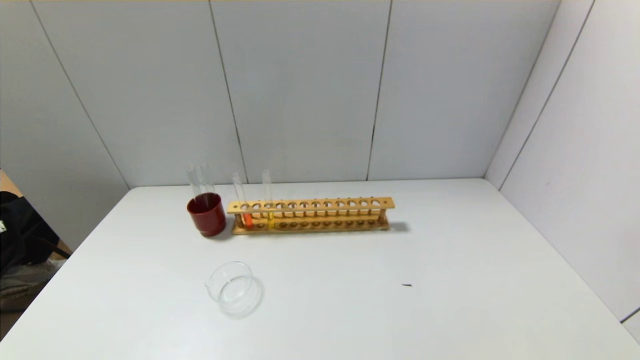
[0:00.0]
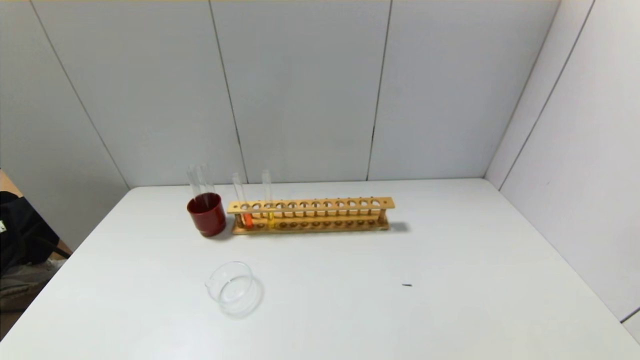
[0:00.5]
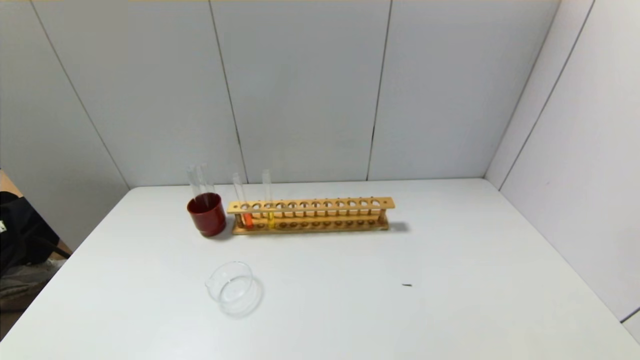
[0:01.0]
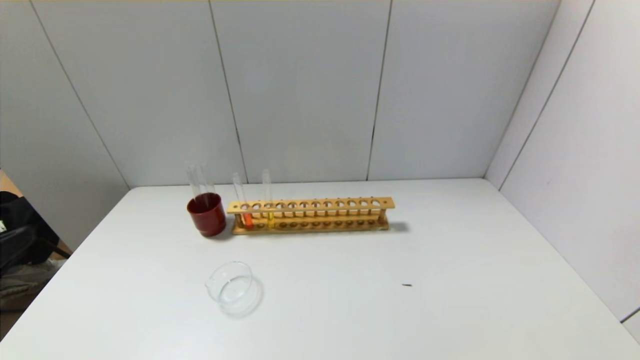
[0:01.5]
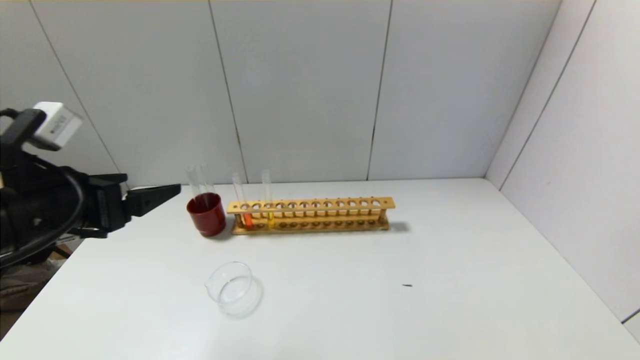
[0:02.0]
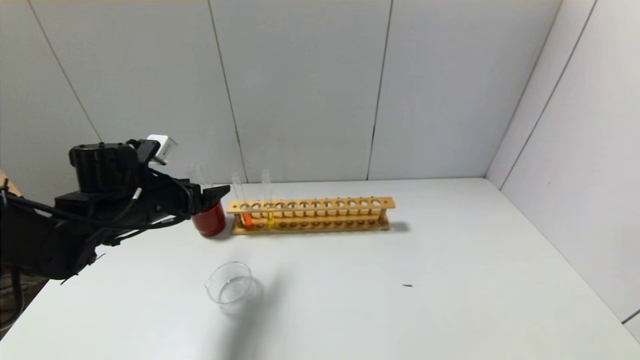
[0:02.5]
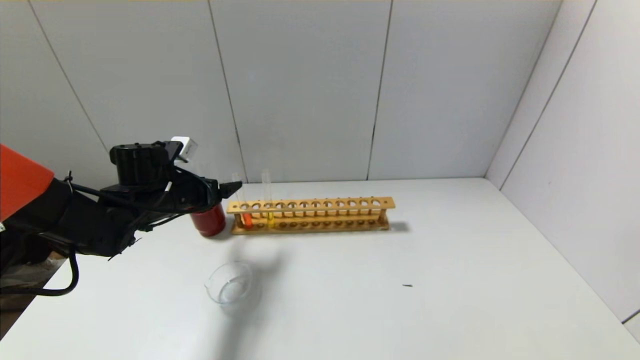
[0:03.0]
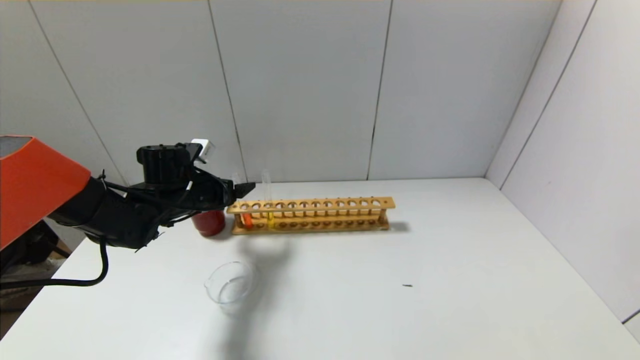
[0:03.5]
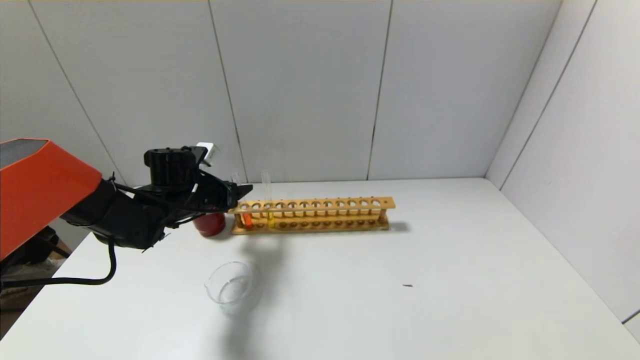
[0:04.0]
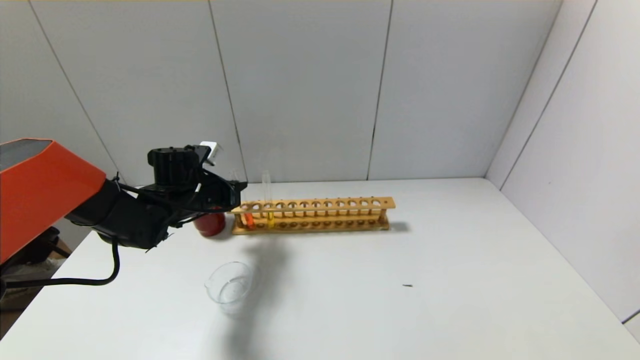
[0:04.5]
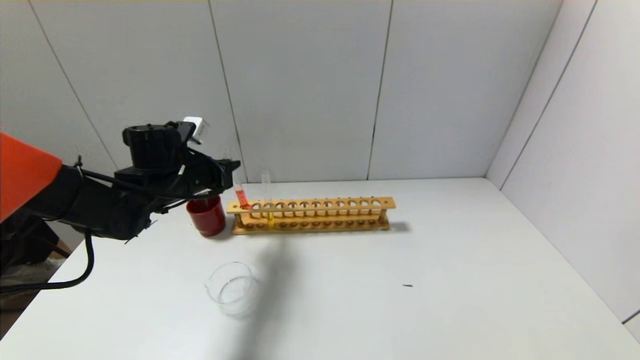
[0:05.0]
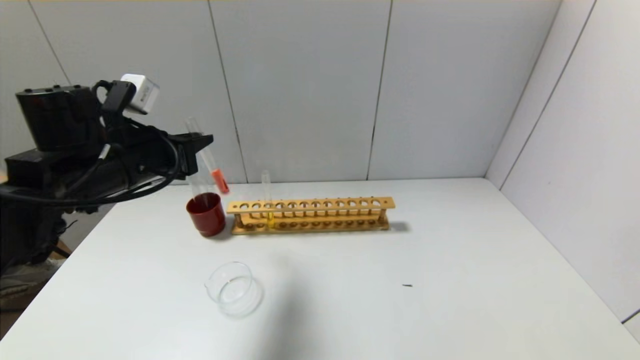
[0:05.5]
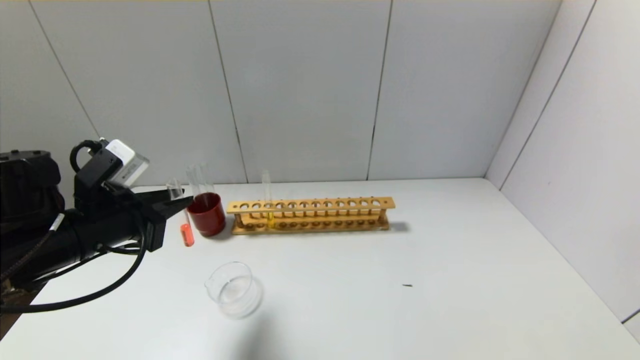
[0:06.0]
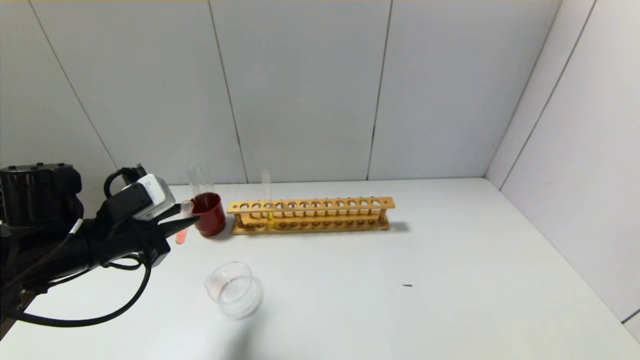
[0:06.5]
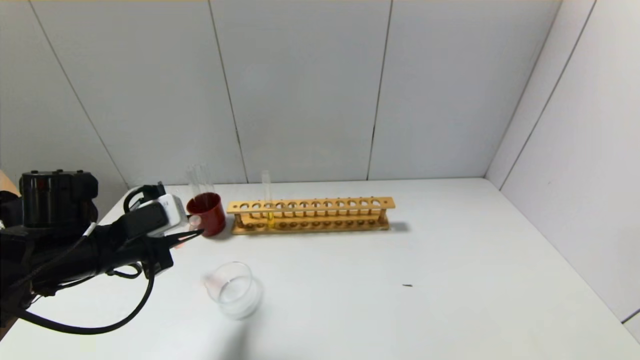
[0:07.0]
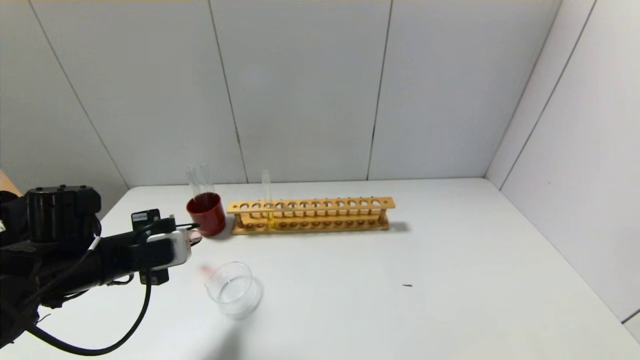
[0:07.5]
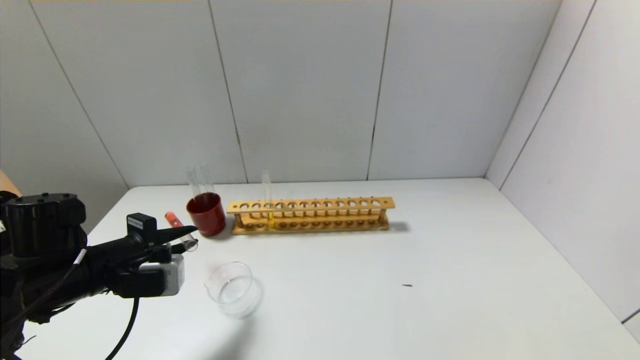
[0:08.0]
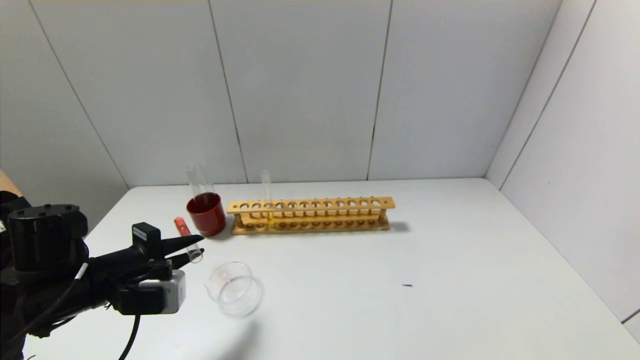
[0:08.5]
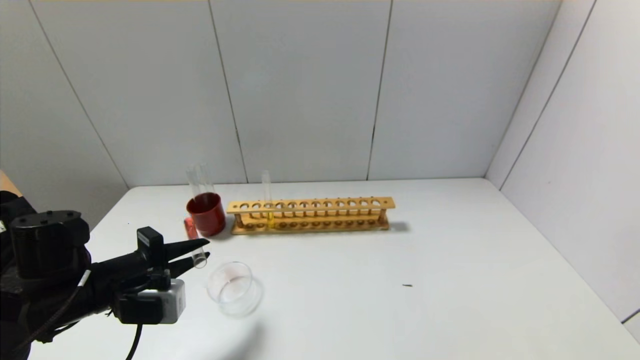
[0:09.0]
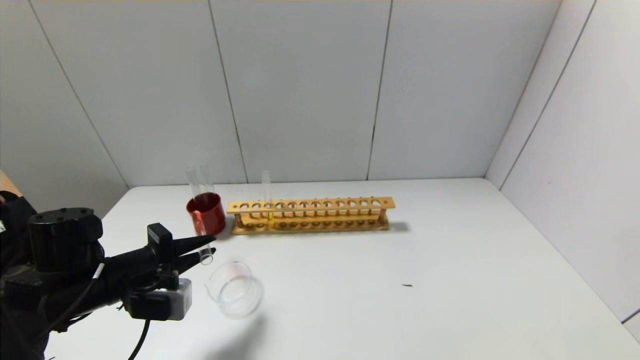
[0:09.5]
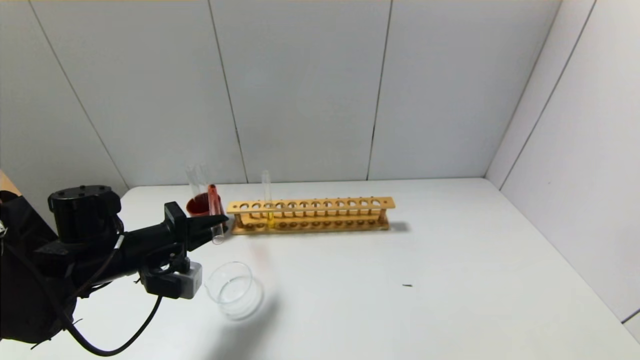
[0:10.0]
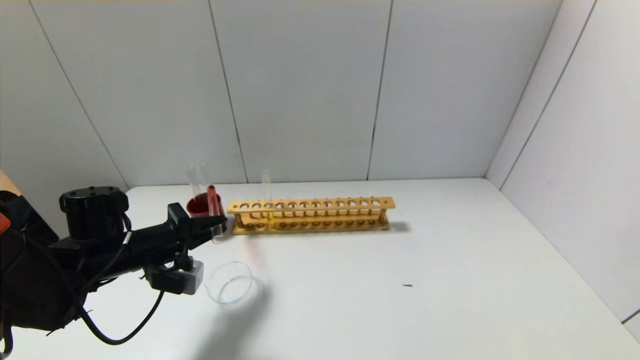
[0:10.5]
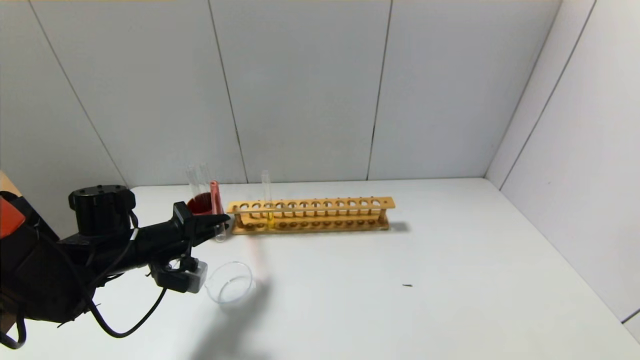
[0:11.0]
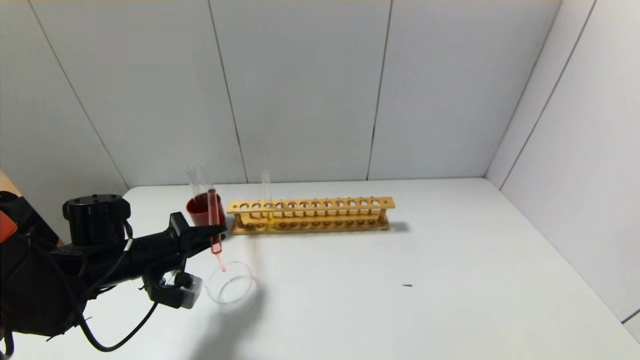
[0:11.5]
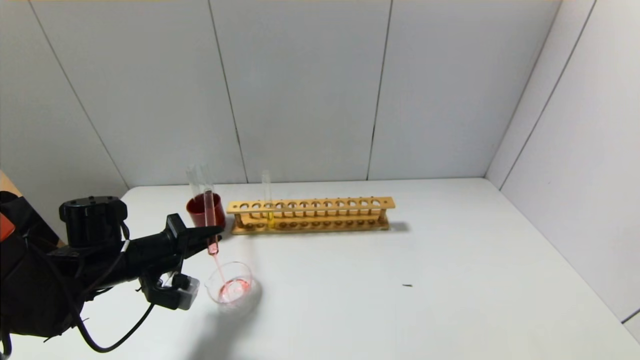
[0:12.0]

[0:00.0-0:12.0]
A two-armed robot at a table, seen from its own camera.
Step, 0:00.0 to 0:04.0: Grasp the red reagent with the left gripper.
0:00.0 to 0:02.0: The left gripper is displaced forward and upward by approximately 25 cm.
0:02.0 to 0:04.0: The left gripper moves forward and downward, approximately 25 cm, and closes up.
0:04.0 to 0:06.0: The left gripper moves backward and upward, roughly 20 cm, and closes up.
0:06.0 to 0:08.0: The left gripper is displaced downward by approximately 5 cm.
0:10.0 to 0:12.0: The grippers move only a little.

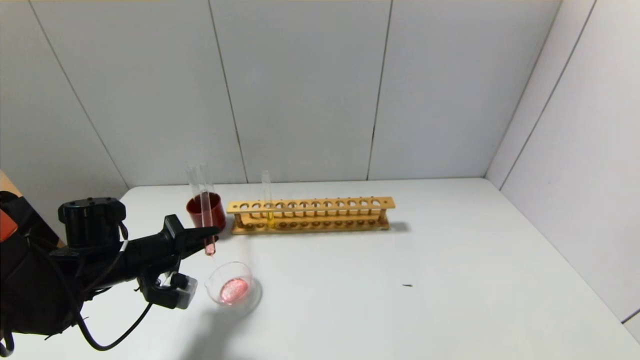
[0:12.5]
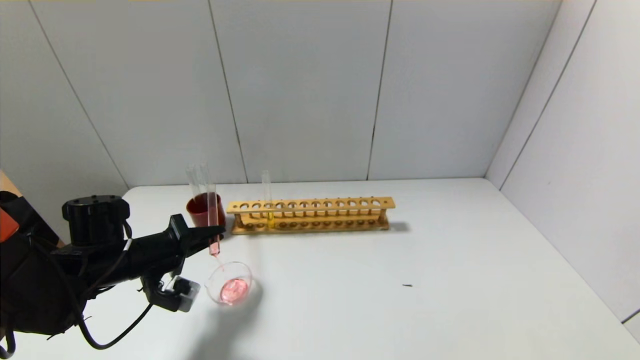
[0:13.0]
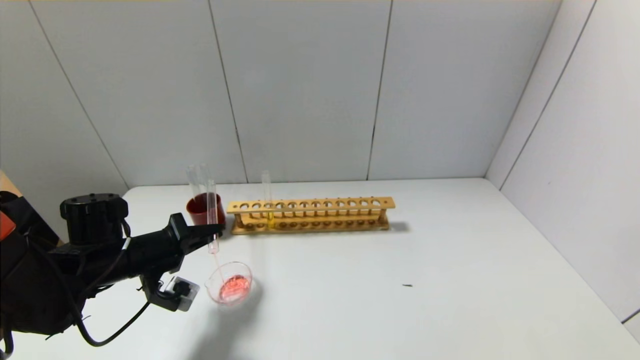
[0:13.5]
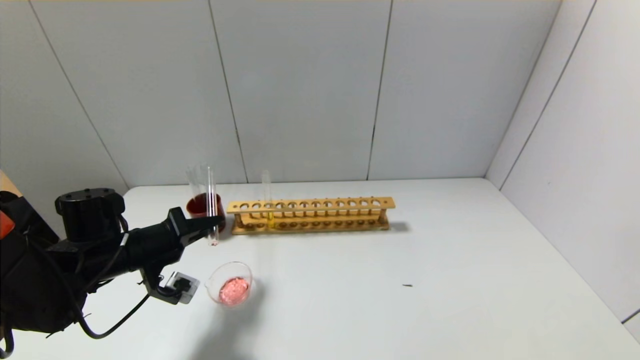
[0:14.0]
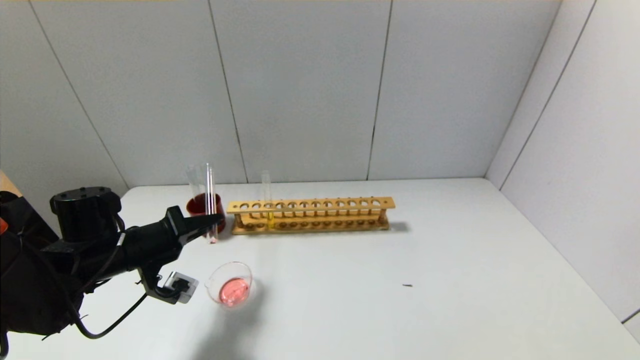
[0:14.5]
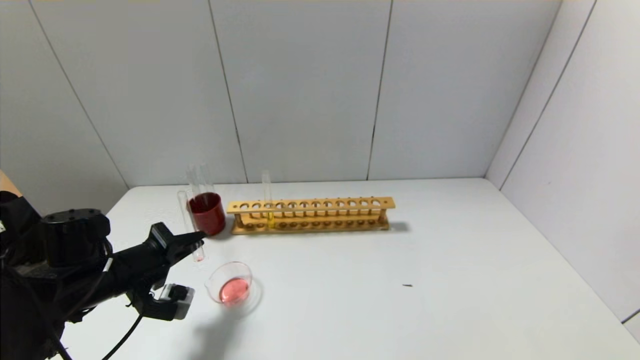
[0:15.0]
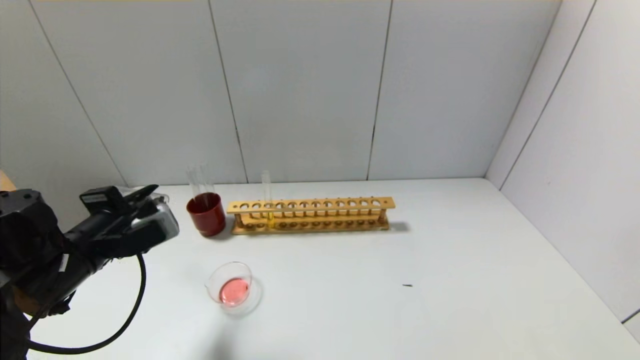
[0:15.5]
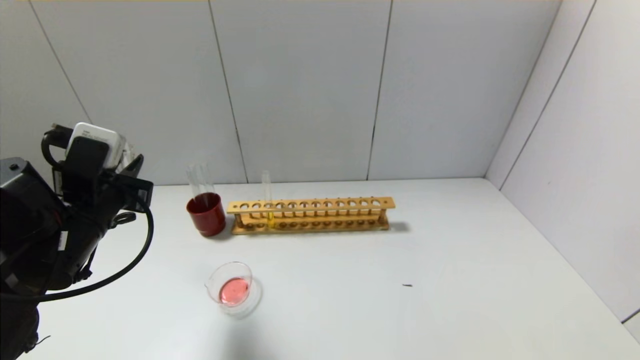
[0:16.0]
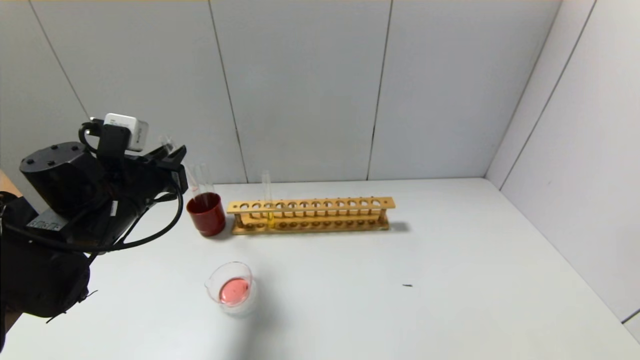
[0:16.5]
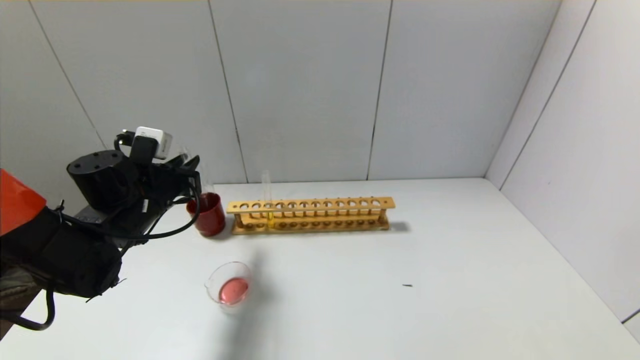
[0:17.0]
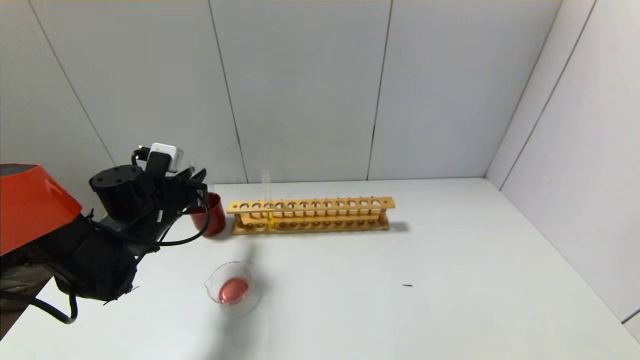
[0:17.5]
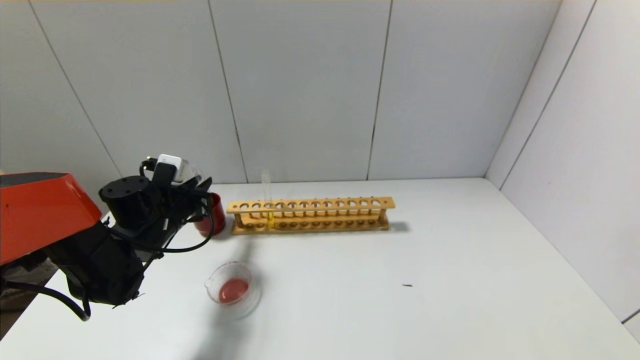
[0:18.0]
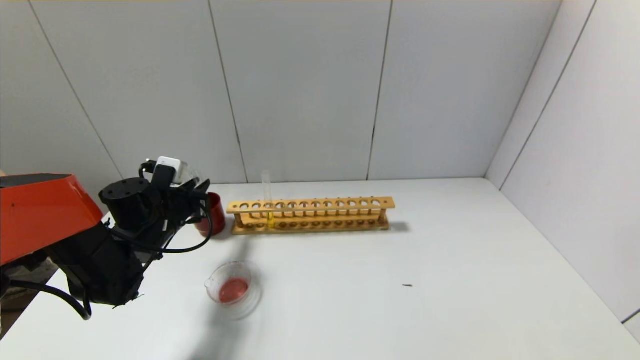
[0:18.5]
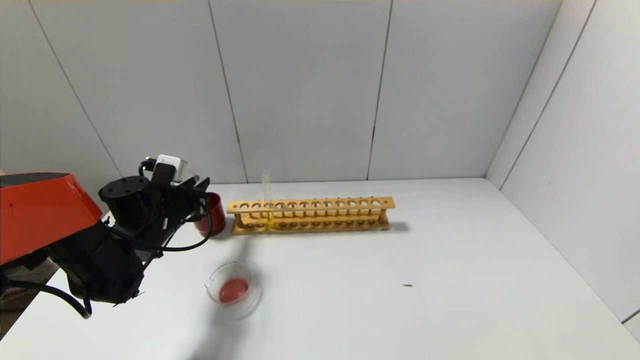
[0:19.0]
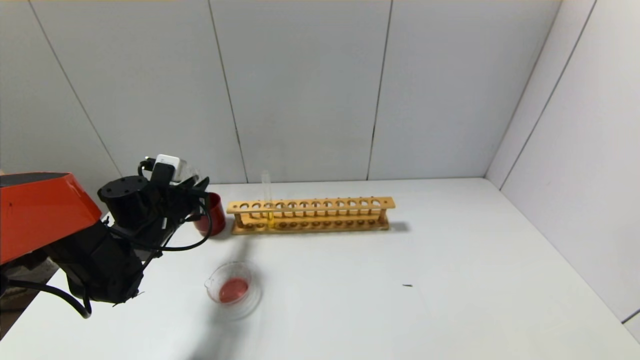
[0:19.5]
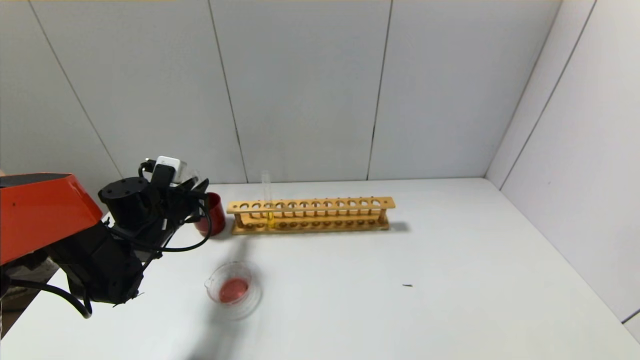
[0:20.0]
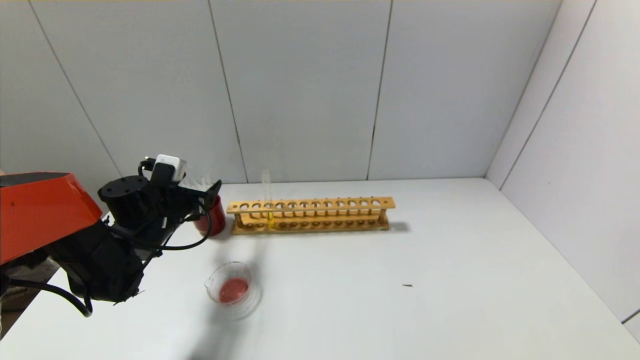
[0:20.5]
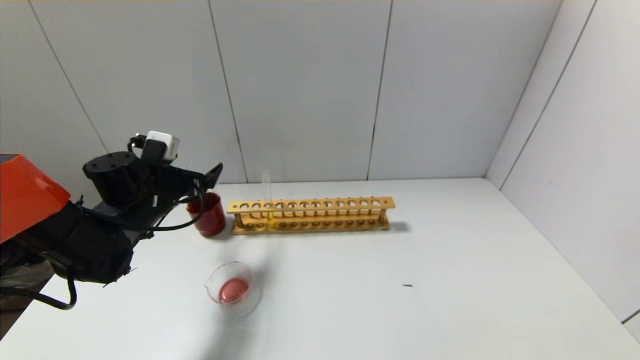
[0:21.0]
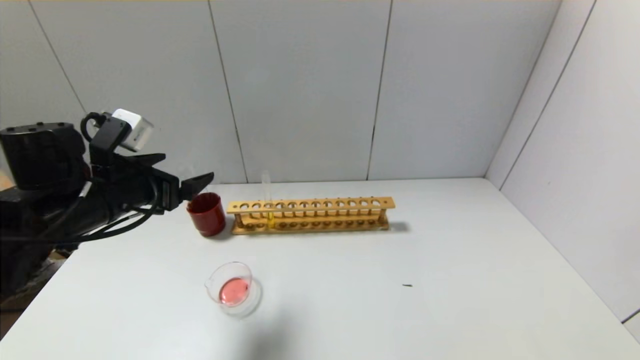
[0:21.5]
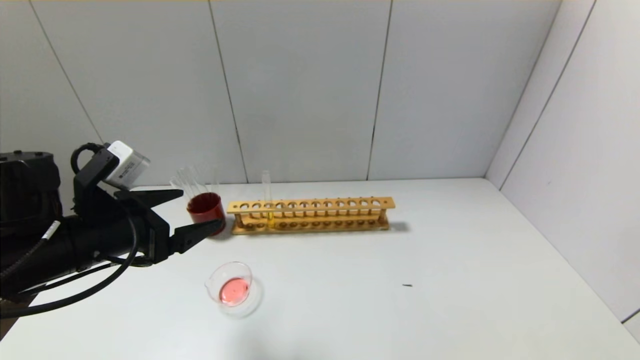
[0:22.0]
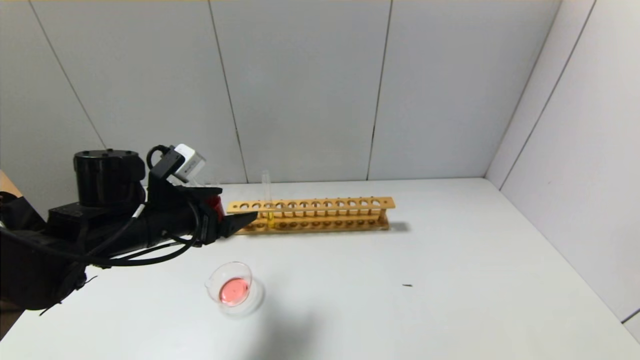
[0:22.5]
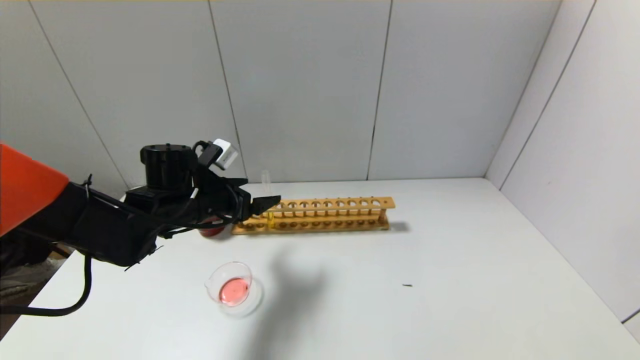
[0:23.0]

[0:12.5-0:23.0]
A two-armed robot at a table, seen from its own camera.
Step, 0:12.5 to 0:15.0: Pour the red reagent into the graduated cylinder with the left gripper.
Step, 0:15.5 to 0:20.0: Place the test tube into the brown cup with the left gripper.
0:12.5 to 0:14.5: The grippers move only a little.
0:14.5 to 0:16.5: The left gripper goes approximately 5 cm upward.
0:16.5 to 0:19.0: The left gripper moves downward and forward, some 10 cm.
0:19.0 to 0:21.0: The left gripper opens its fingers.
0:21.0 to 0:23.0: The left gripper is displaced to the right by some 5 cm, and reaches about 15 cm backward, then returns.
